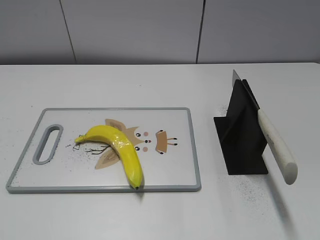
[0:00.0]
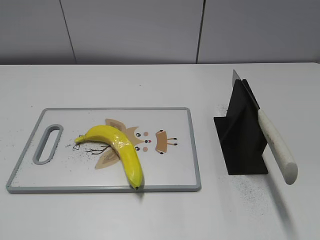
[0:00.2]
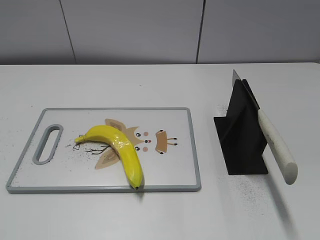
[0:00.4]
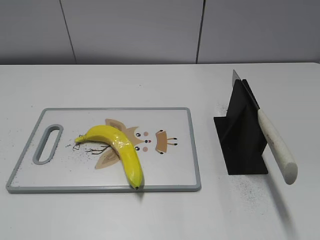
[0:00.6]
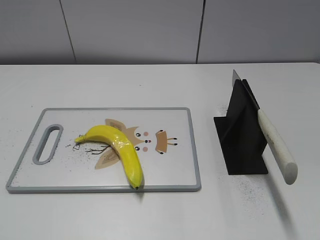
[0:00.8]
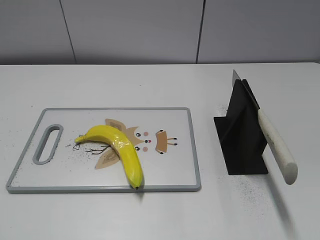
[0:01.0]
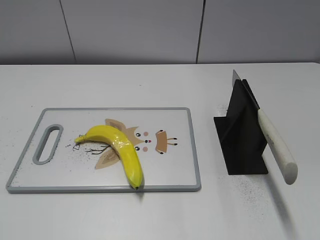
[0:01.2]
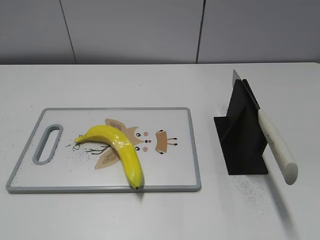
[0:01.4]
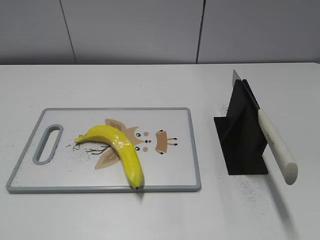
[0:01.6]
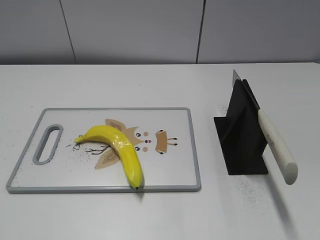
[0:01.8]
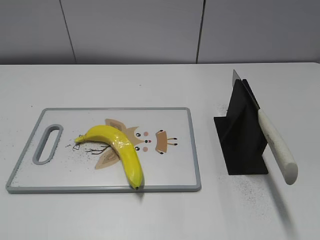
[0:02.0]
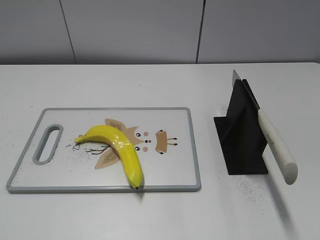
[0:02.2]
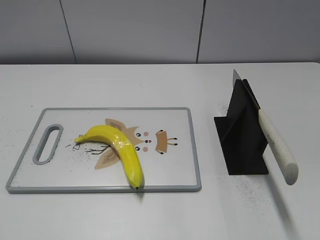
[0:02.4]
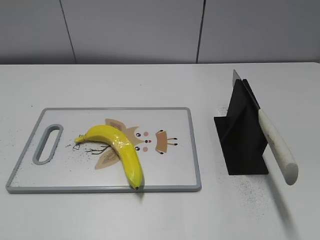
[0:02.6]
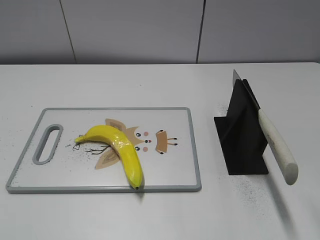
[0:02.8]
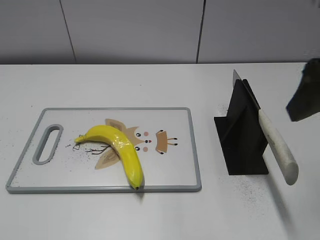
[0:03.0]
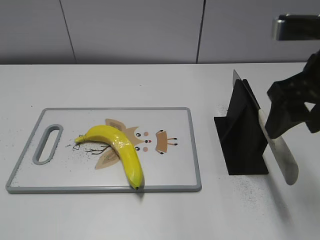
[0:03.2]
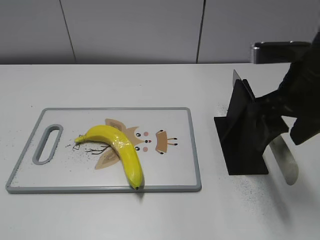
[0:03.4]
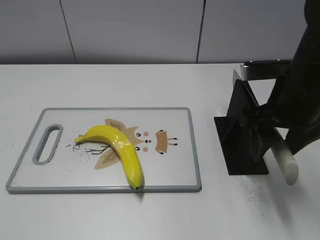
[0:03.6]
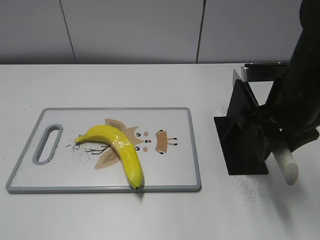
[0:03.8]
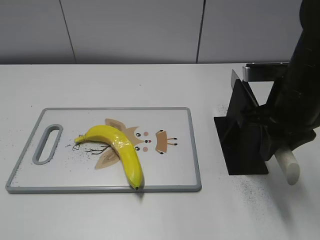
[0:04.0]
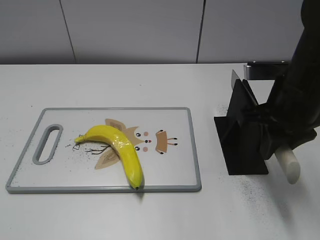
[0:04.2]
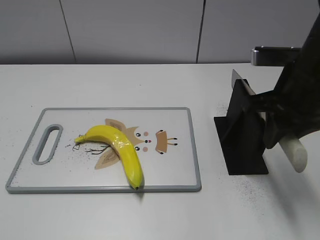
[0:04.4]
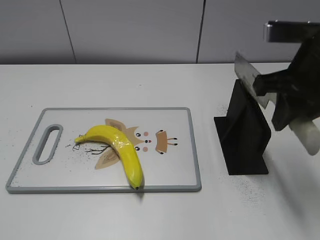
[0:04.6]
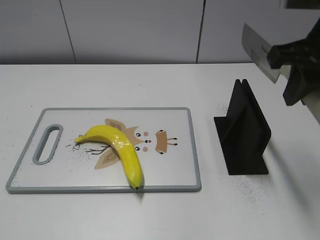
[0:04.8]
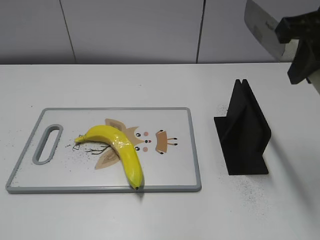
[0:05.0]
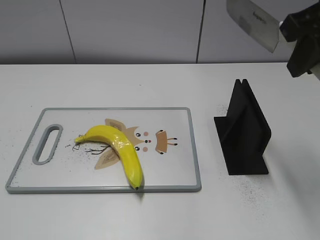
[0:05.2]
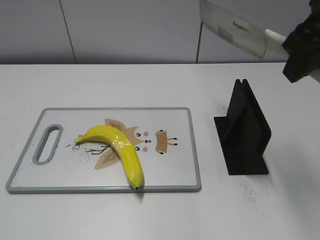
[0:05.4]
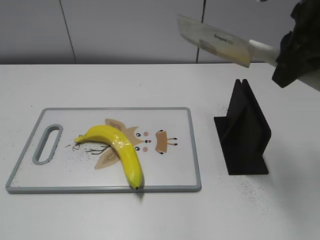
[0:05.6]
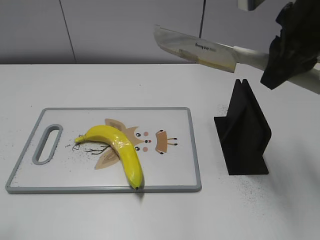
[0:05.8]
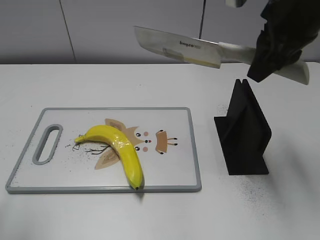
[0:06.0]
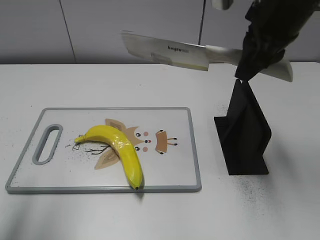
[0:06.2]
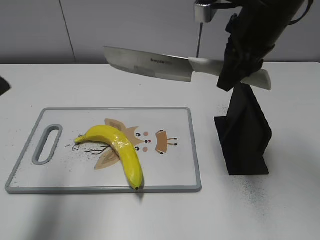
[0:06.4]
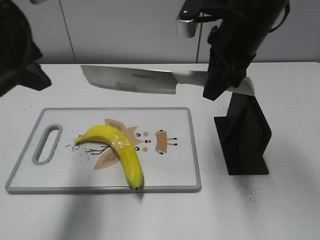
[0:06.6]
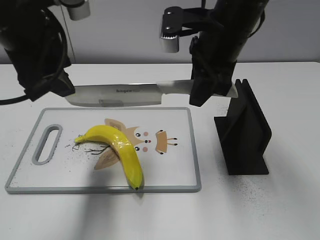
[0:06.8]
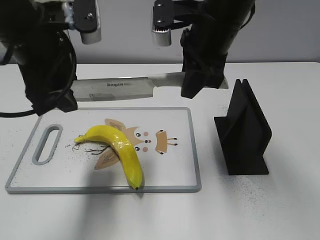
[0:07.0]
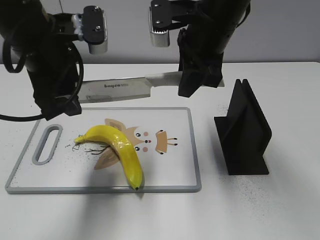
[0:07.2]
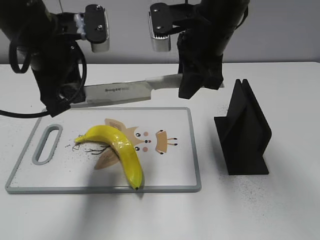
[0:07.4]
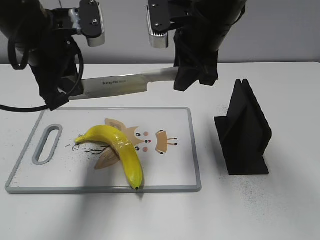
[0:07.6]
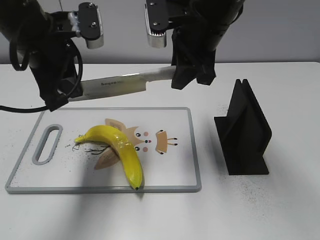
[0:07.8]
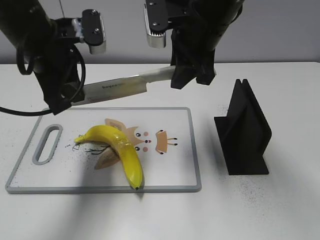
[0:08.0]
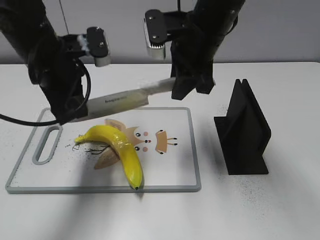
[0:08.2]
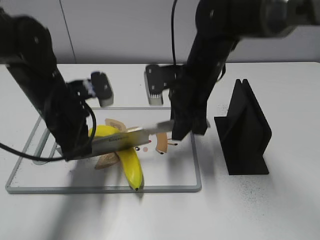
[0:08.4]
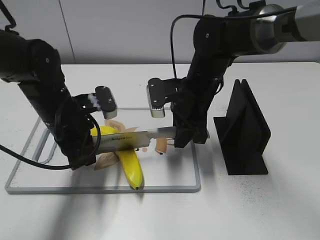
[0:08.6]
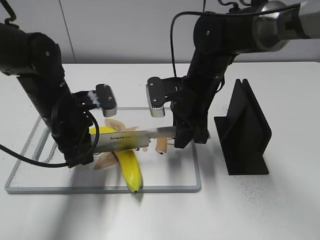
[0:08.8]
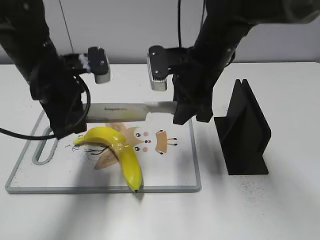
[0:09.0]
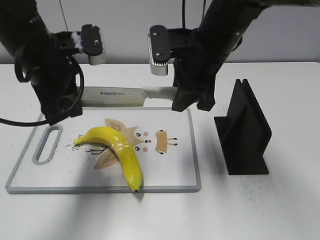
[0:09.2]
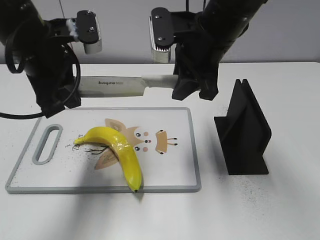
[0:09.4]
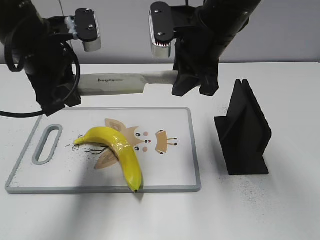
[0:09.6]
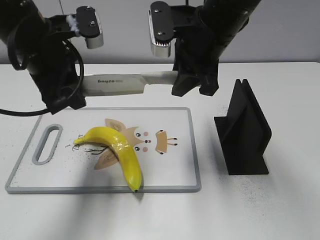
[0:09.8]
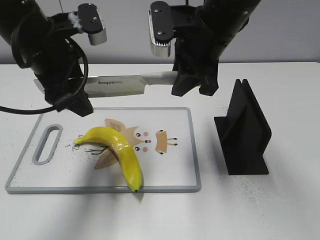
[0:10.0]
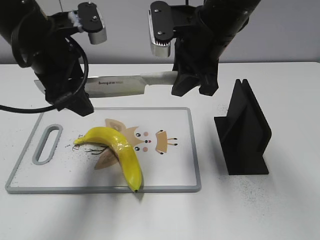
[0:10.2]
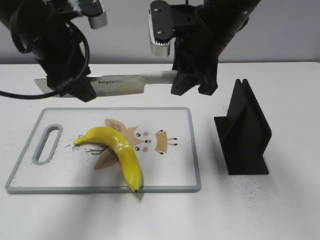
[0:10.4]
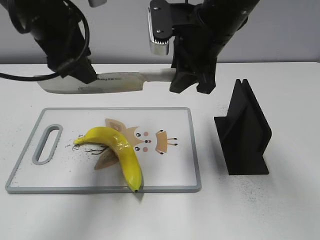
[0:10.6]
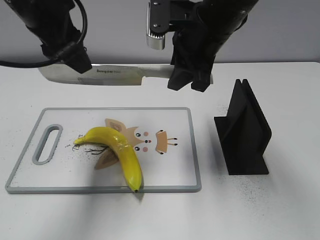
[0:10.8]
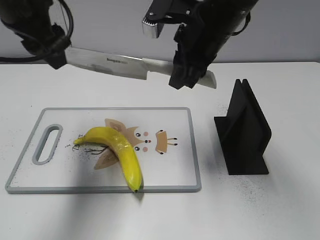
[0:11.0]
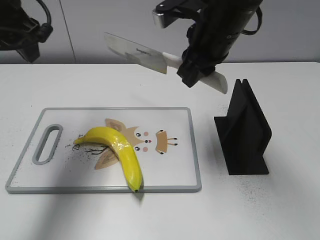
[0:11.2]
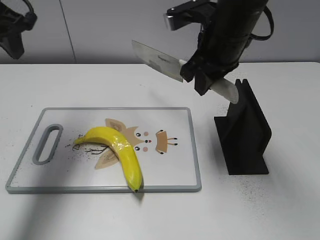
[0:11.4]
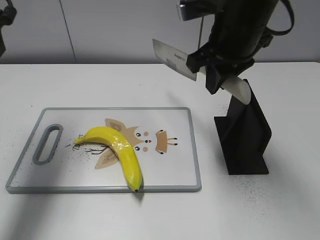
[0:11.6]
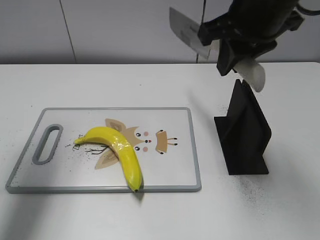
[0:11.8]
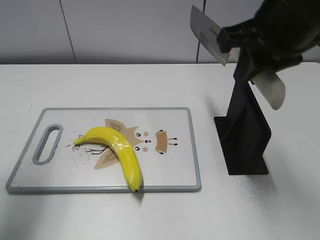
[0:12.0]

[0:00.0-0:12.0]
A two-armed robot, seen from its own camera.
Task of the whole recording: cut plastic banana.
Step, 0:00.0 to 0:04.8: Grab the knife handle with your right hand.
Step, 0:05.0 to 0:09.4: Lift the knife with your right hand.
0:01.6 to 0:03.0: The right gripper travels forward and to the left by approximately 25 cm.
0:03.0 to 0:04.4: The right gripper travels downward and forward by approximately 10 cm, and closes up.
0:04.4 to 0:06.0: The right gripper moves upward, about 10 cm. The left gripper is displaced forward and upward by approximately 15 cm.
0:06.0 to 0:07.6: The right gripper goes roughly 10 cm to the left, downward and forward. The left gripper goes about 25 cm forward and to the right, and closes up.
0:07.6 to 0:09.0: Both grippers move downward, roughly 5 cm.
0:09.0 to 0:10.4: The grippers both shift upward by roughly 5 cm. The left gripper opens its fingers.
0:10.4 to 0:12.0: The left gripper moves to the left and backward, approximately 15 cm. Meanwhile the right gripper moves backward, to the right and upward, about 10 cm.

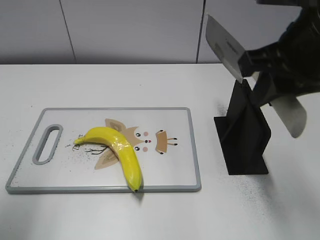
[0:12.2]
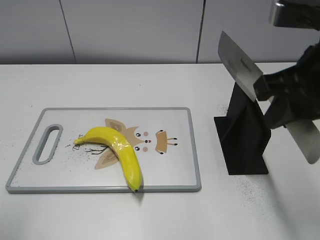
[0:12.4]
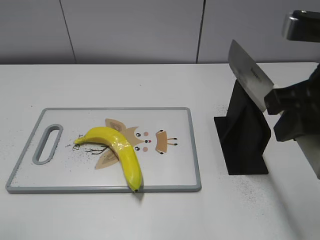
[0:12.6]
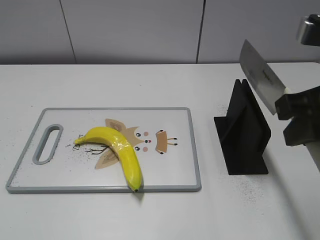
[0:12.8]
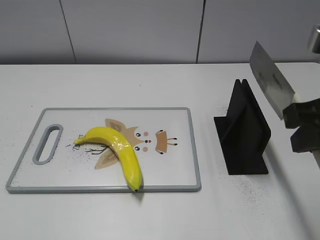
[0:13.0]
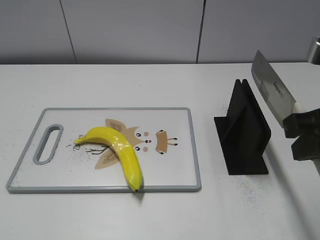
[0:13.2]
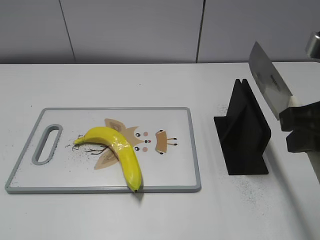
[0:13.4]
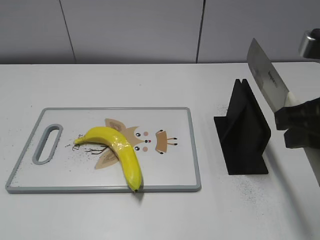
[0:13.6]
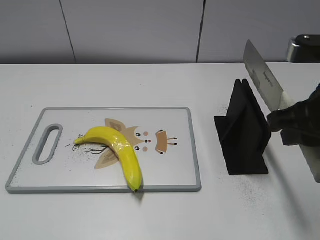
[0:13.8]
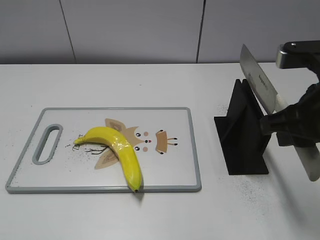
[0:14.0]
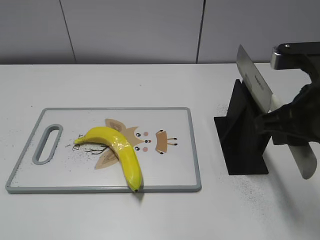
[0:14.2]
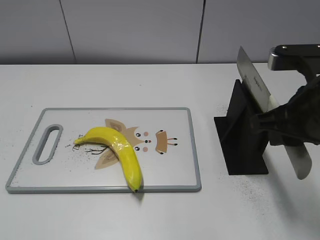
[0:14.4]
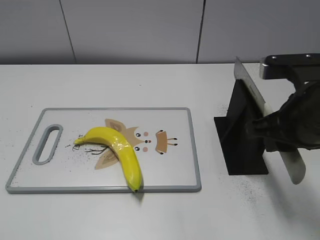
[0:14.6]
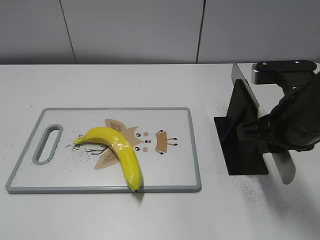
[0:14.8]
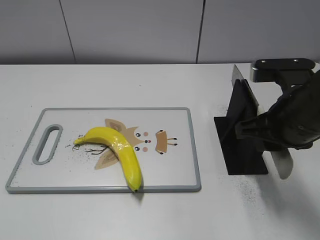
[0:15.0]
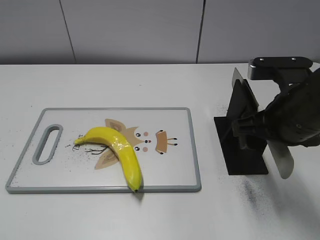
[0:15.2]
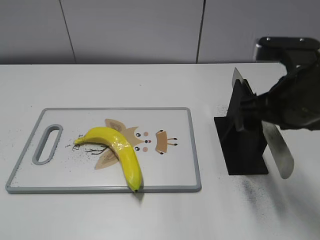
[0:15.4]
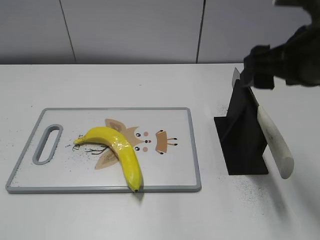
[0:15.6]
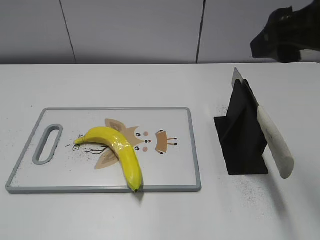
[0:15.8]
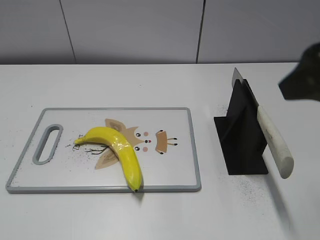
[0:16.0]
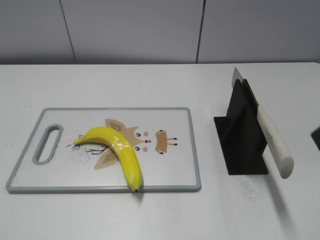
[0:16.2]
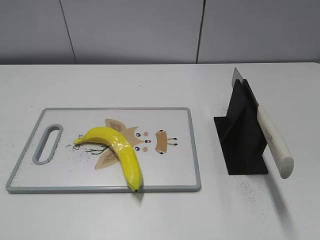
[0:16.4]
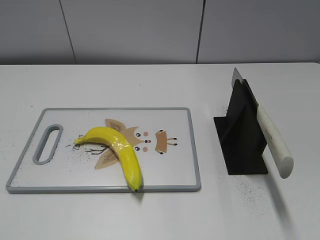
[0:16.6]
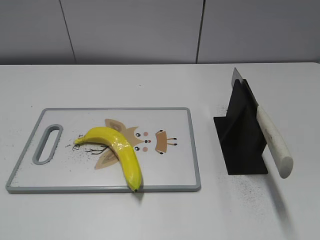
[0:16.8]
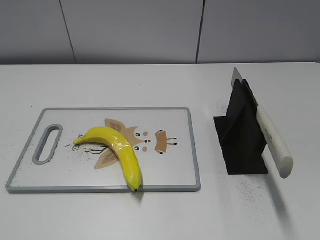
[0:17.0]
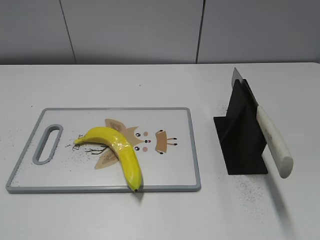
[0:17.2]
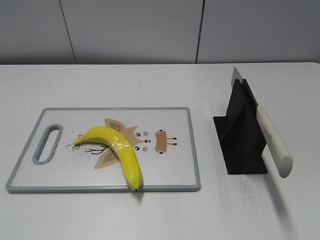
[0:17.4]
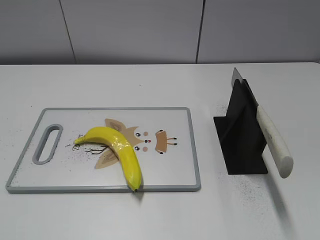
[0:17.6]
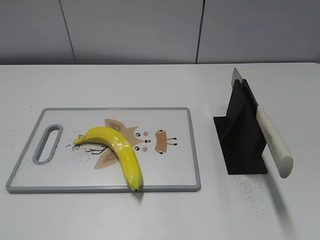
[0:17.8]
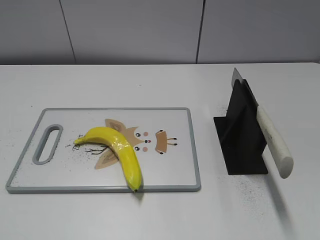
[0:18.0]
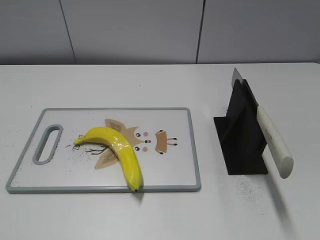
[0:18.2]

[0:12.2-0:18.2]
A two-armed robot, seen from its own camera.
Task of the whole recording: cut plastic banana.
Step, 0:12.2 to 0:18.2: Place the knife on the storage rack with your right hand.
0:12.2 to 0:13.8: The right gripper goes about 5 cm downward. The left gripper heads backward, covering some 20 cm.
0:13.8 to 0:15.2: The right gripper moves roughly 5 cm, and opens its fingers.
0:15.2 to 0:16.6: The right gripper goes about 20 cm backward, upward and to the right.
